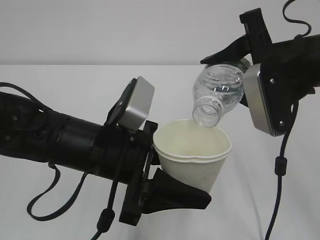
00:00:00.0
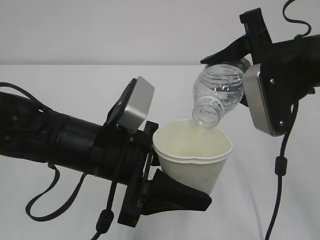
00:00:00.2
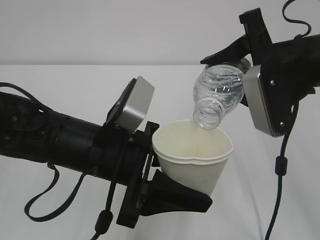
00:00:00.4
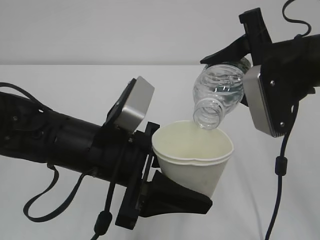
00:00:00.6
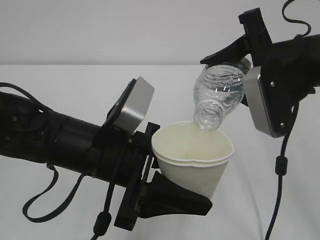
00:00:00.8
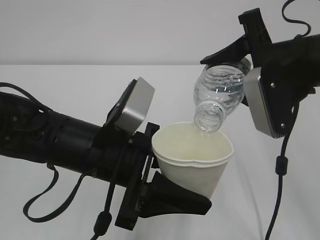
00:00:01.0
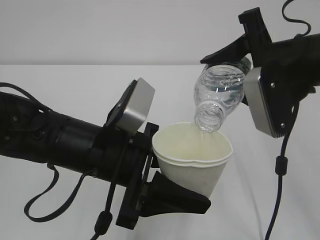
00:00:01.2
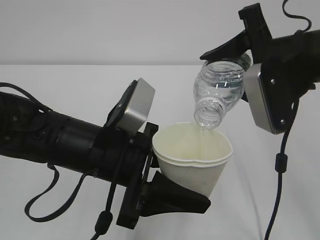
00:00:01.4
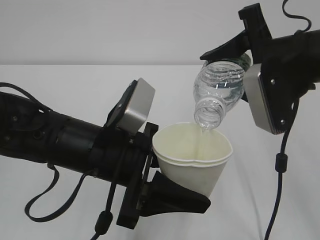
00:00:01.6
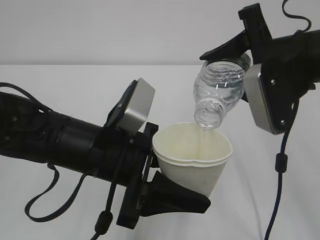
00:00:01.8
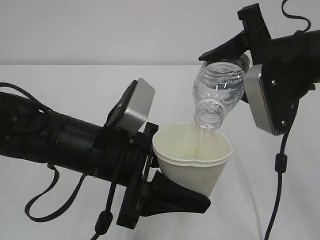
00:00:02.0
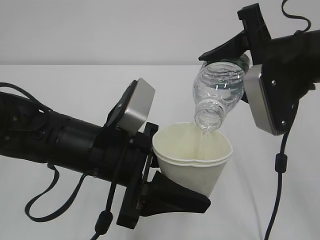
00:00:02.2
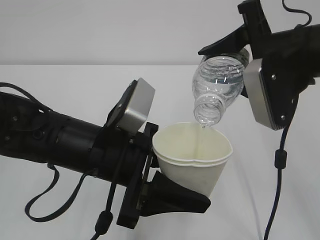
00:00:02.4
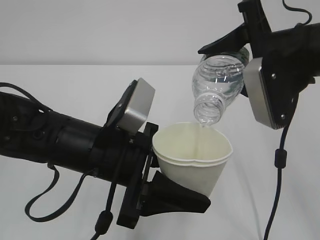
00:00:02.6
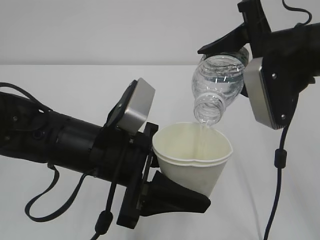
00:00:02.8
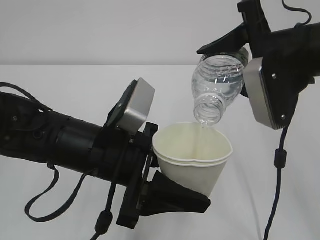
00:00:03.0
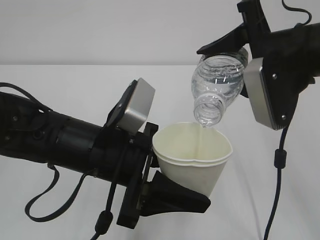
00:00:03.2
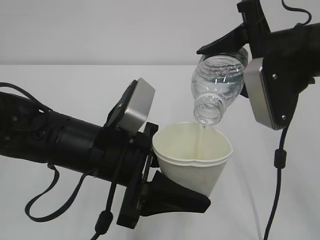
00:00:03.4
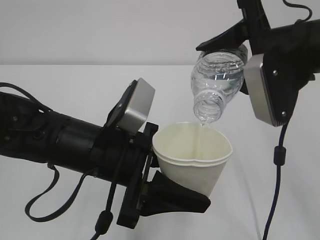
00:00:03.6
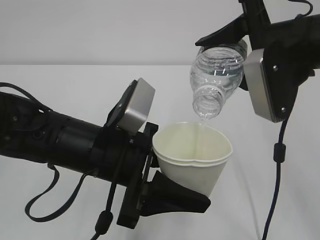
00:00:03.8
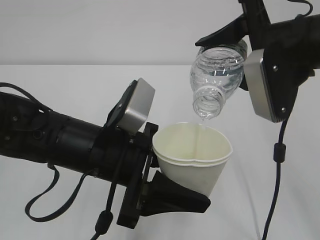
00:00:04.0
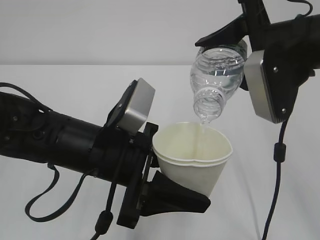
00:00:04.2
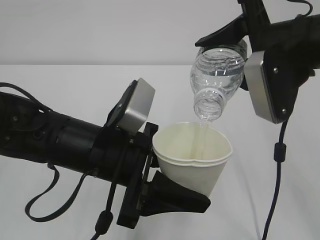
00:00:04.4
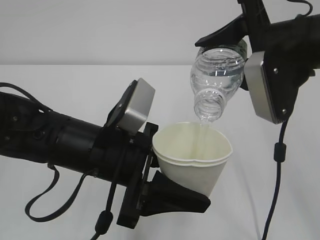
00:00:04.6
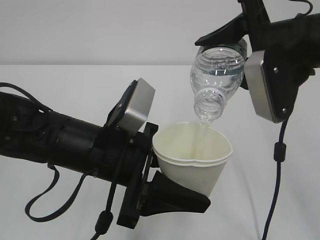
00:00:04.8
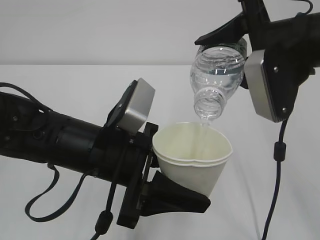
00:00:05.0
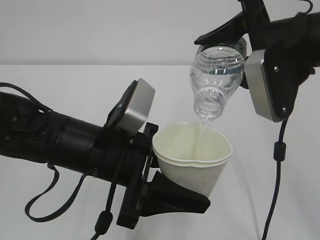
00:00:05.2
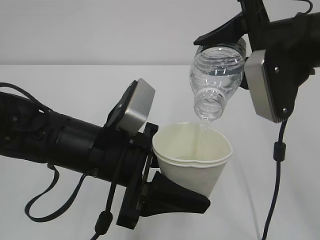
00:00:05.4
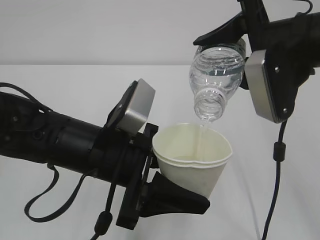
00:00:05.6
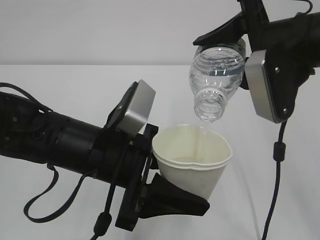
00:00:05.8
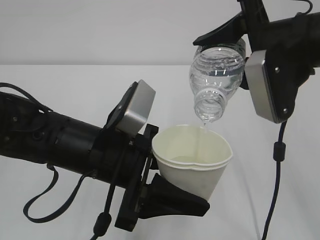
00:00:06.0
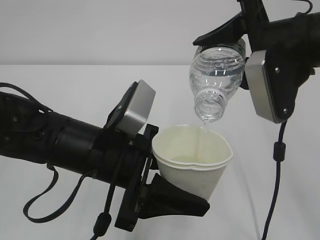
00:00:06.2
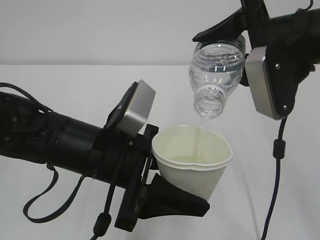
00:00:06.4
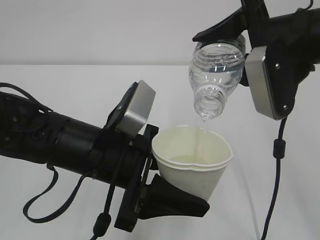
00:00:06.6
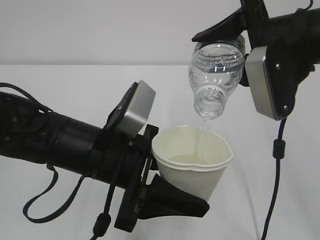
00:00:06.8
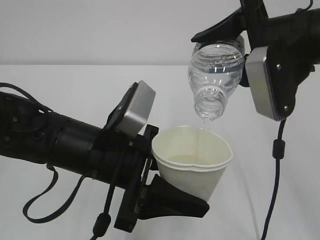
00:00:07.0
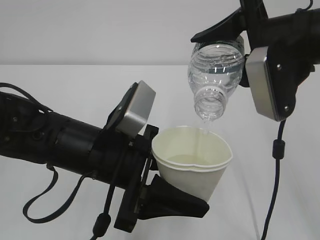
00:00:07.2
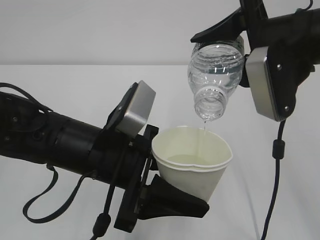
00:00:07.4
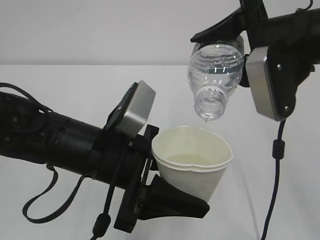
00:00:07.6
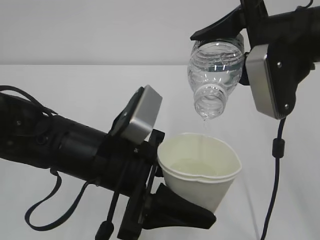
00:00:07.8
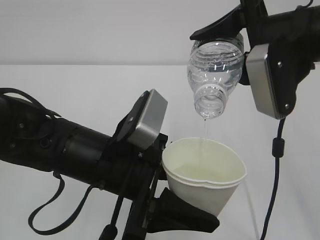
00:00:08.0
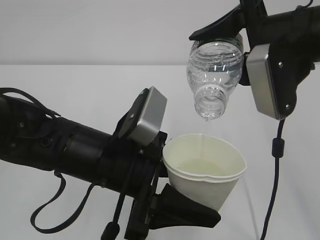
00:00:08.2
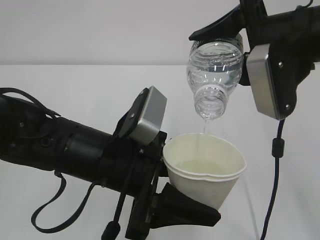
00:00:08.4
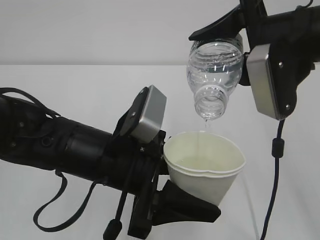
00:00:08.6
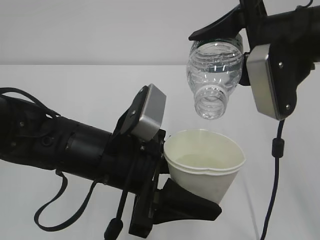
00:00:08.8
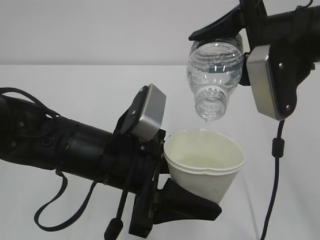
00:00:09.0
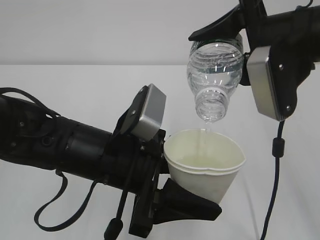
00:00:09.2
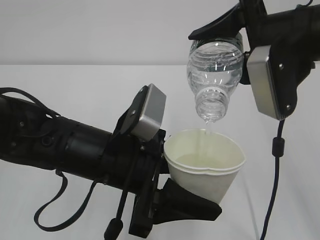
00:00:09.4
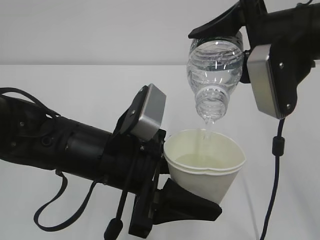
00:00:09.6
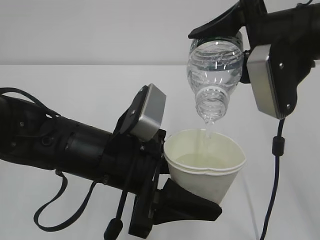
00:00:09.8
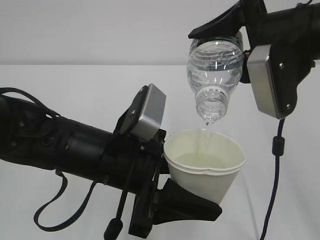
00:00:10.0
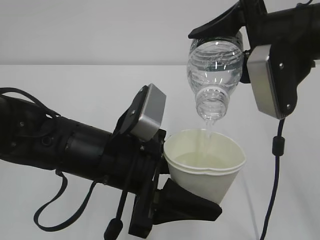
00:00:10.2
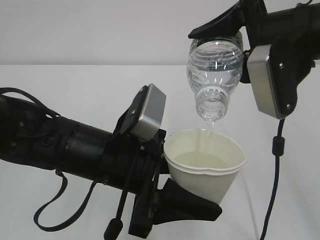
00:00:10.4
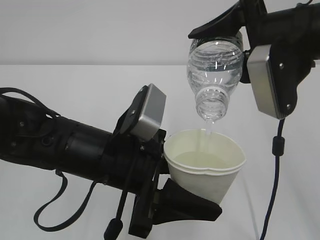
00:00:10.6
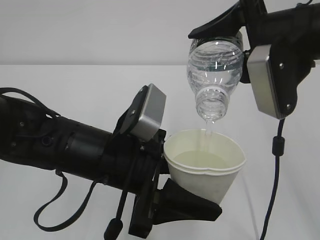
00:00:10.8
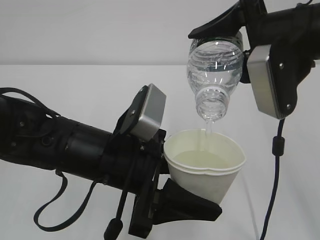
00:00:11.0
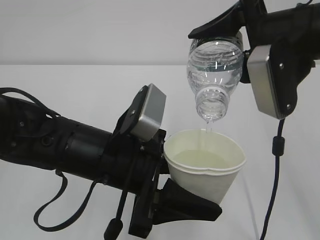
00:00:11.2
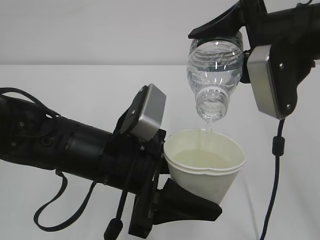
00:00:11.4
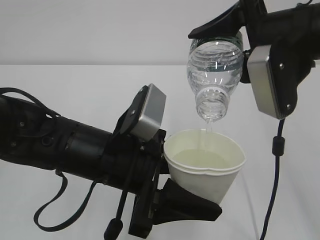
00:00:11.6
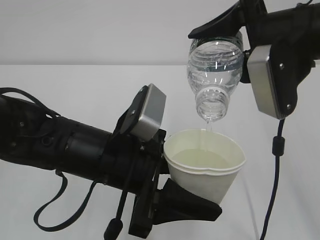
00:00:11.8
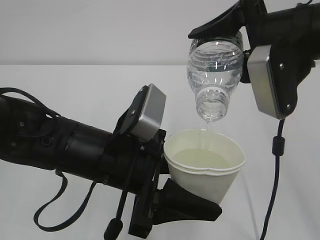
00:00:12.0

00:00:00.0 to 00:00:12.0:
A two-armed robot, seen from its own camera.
00:00:00.0 to 00:00:01.6: Neither gripper changes place.
00:00:01.6 to 00:00:03.0: Both grippers stay about where they are.
00:00:03.0 to 00:00:06.0: Both grippers stay about where they are.
00:00:06.0 to 00:00:07.6: Both grippers stay about where they are.
00:00:07.6 to 00:00:09.0: The grippers make only small movements.
00:00:09.0 to 00:00:12.0: Both grippers stay put.

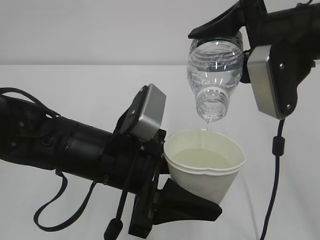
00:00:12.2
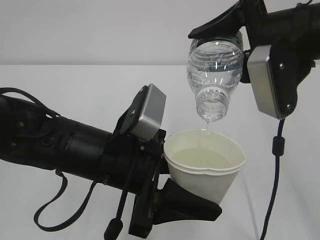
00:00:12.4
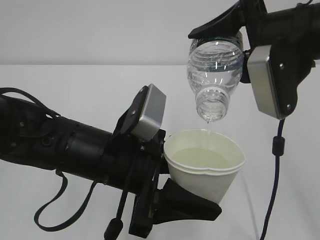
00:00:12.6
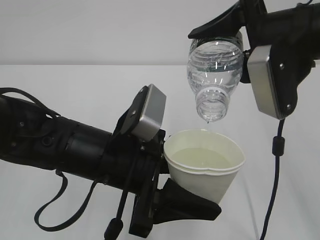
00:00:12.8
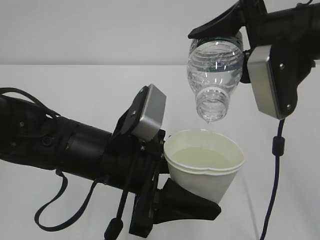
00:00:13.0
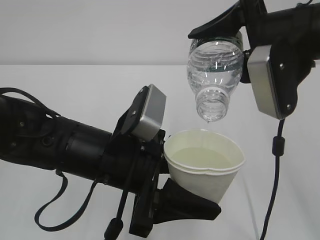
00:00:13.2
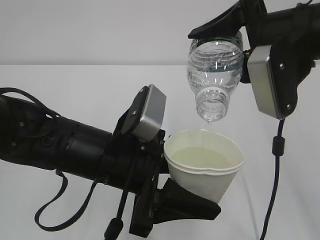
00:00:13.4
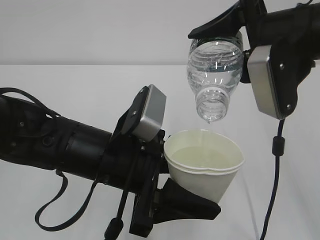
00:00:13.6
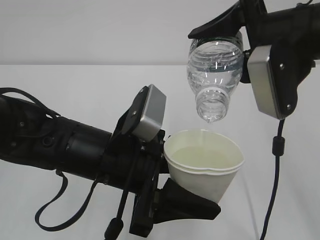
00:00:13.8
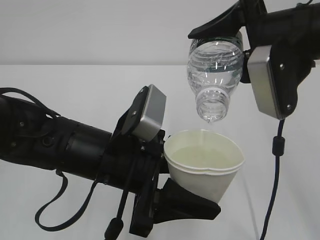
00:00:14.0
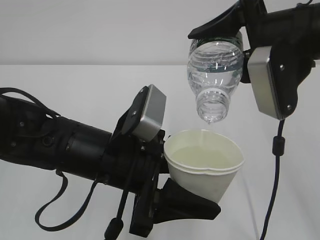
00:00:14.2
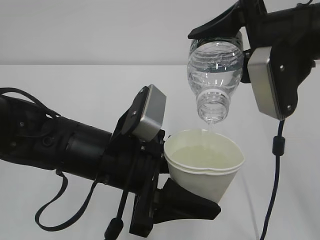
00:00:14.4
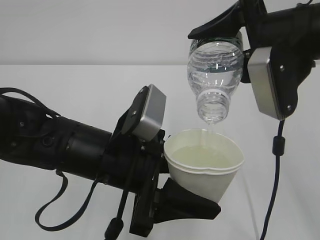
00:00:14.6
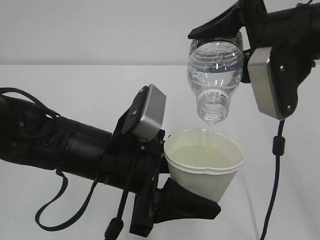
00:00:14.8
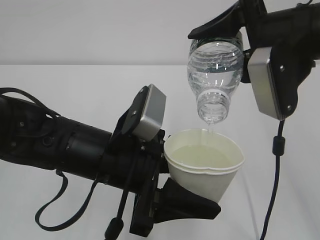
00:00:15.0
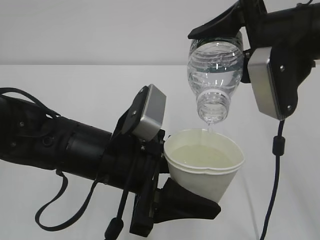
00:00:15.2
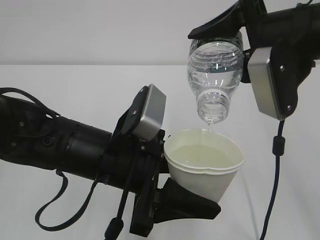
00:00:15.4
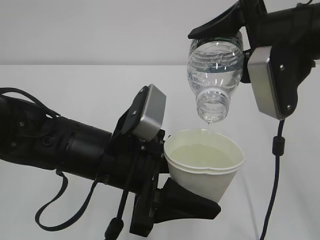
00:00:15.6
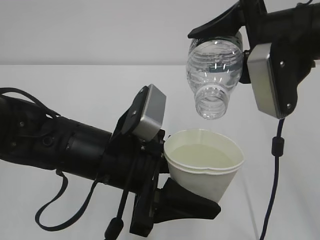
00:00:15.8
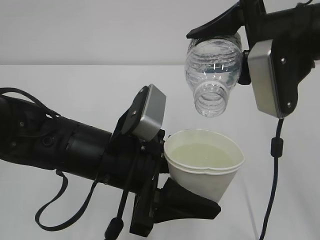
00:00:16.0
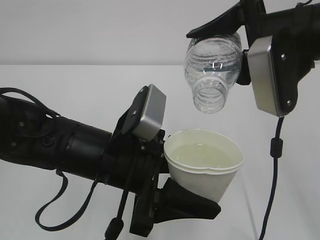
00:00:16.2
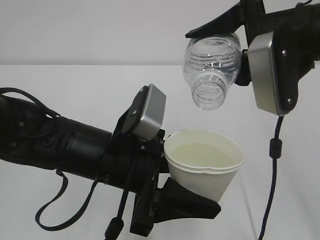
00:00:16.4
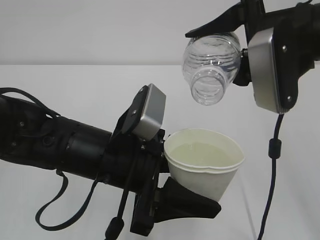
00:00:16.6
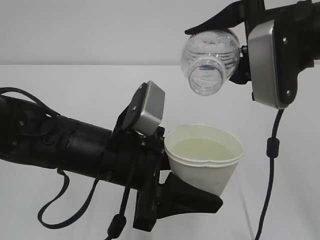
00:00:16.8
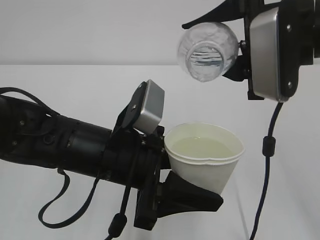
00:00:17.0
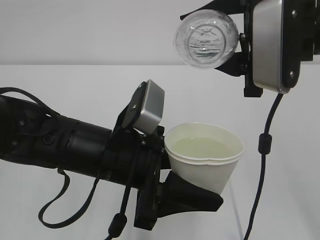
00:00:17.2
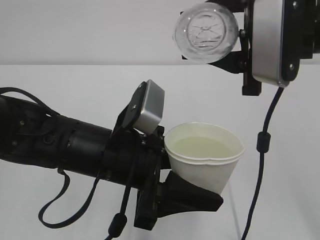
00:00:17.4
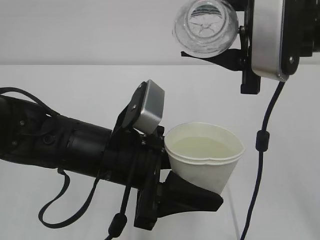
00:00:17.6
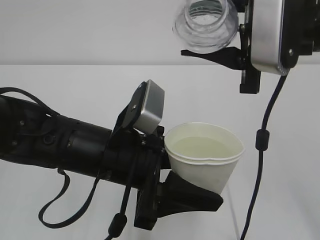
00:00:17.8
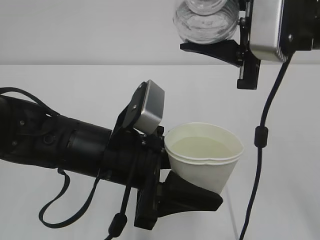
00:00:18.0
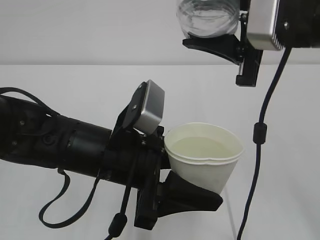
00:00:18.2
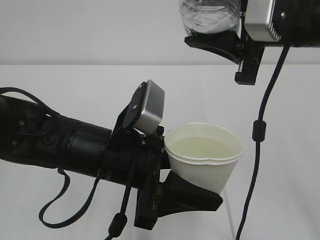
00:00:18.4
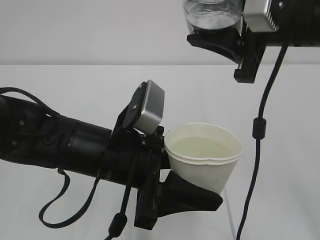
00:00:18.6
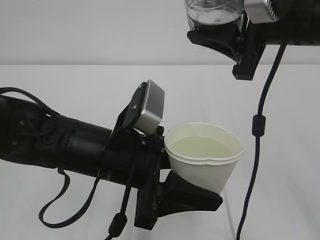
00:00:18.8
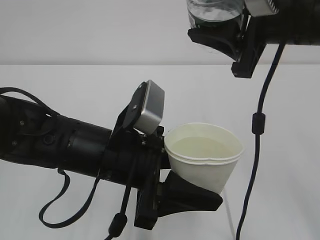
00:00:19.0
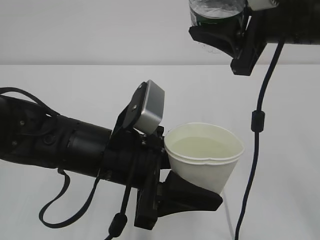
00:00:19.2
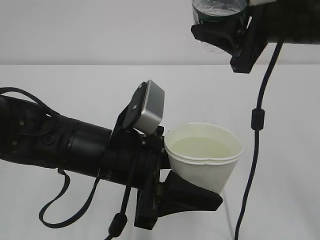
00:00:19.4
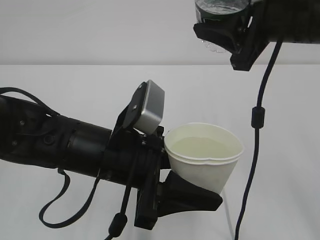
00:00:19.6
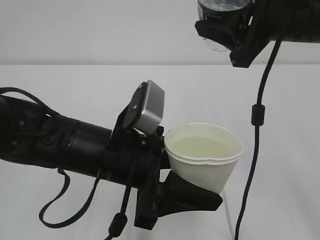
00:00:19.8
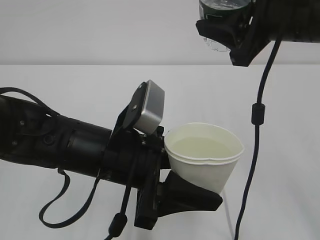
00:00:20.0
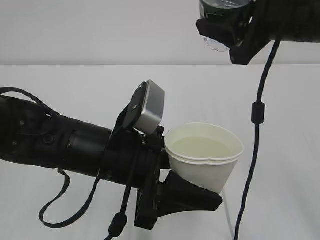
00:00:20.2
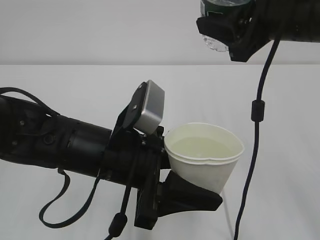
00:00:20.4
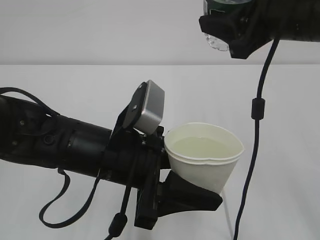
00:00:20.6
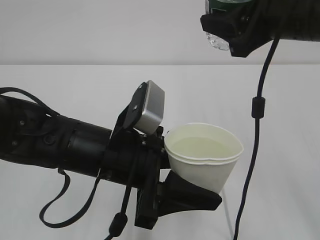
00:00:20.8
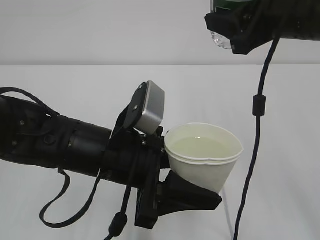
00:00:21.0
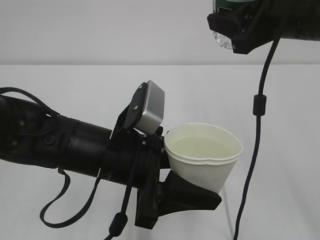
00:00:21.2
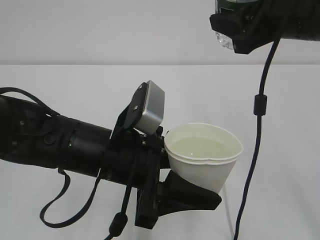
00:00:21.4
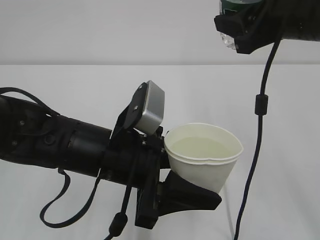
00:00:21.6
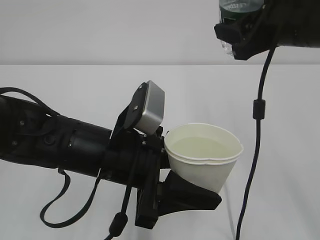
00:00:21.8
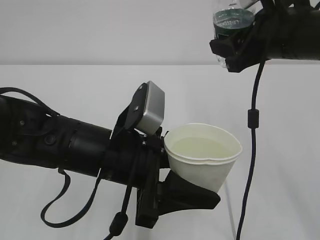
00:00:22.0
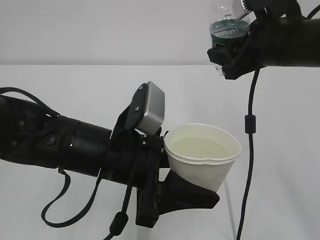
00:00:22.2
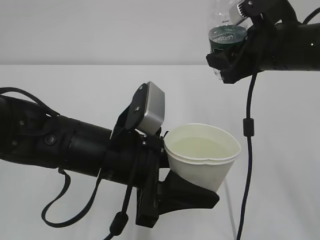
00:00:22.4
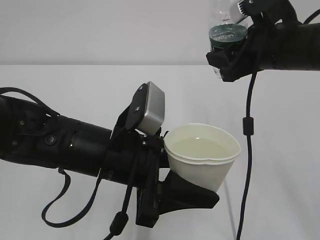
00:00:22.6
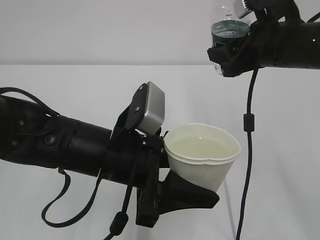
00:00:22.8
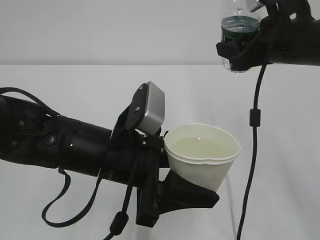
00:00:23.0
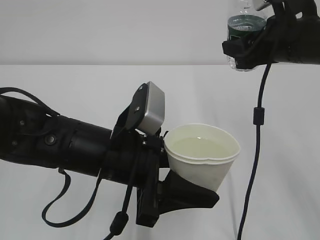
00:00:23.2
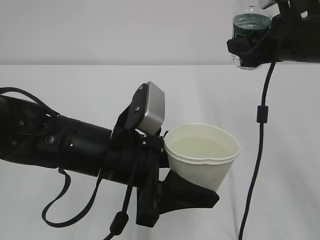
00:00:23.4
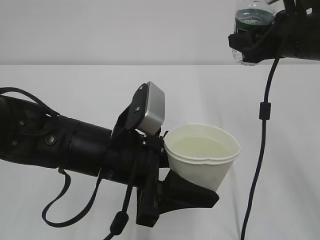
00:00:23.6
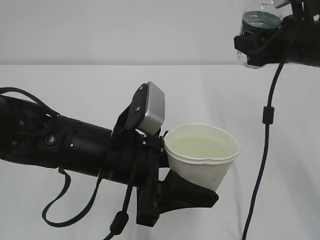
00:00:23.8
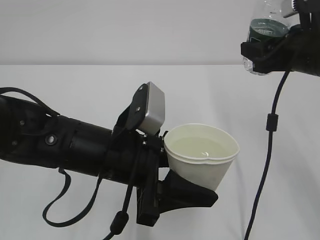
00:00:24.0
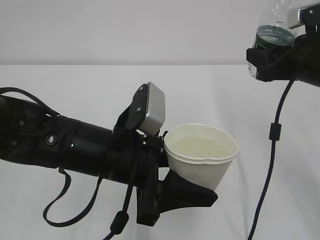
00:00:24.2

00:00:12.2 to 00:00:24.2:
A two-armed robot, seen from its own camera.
00:00:12.2 to 00:00:15.2: Neither gripper changes place.
00:00:15.2 to 00:00:16.6: The grippers make only small movements.
00:00:19.8 to 00:00:21.2: The grippers make only small movements.
00:00:21.2 to 00:00:22.6: The right gripper moves downward, roughly 5 cm.
00:00:22.6 to 00:00:24.2: The right gripper is displaced to the right by approximately 5 cm.
